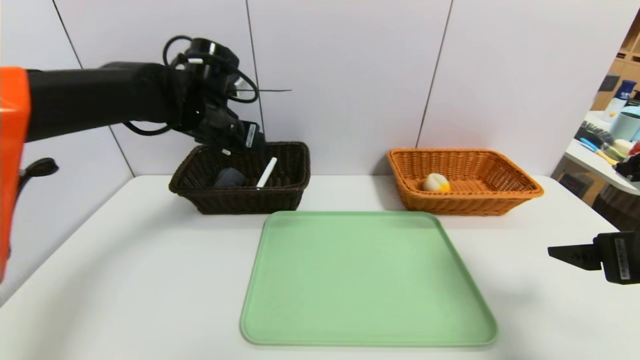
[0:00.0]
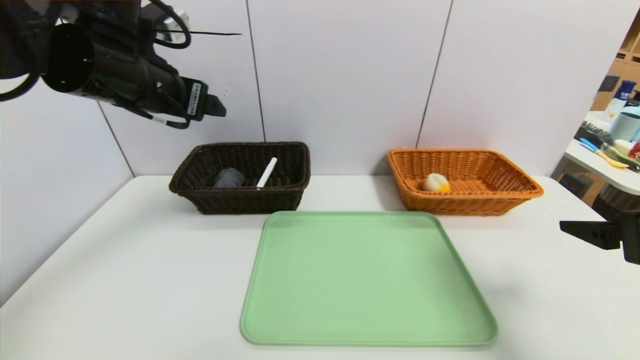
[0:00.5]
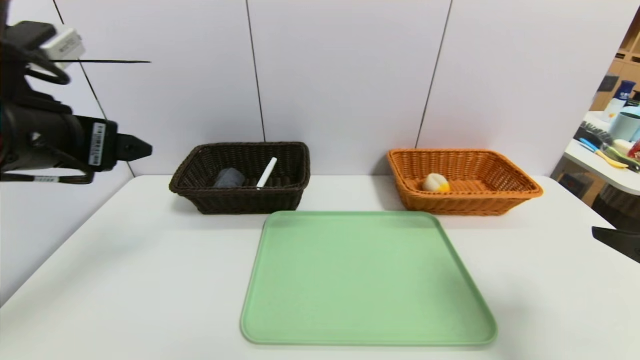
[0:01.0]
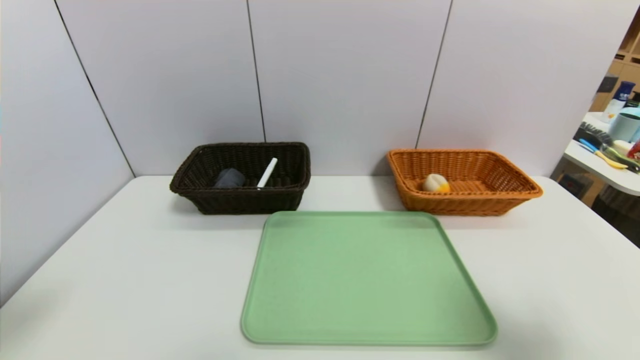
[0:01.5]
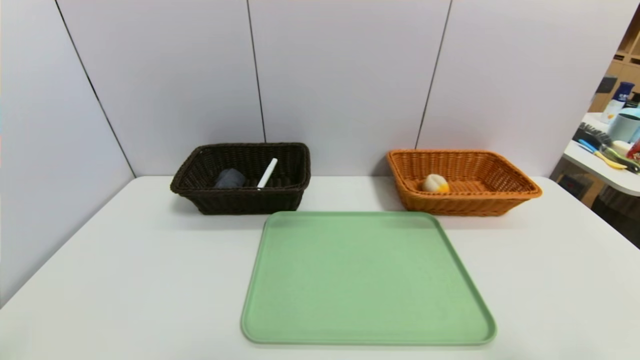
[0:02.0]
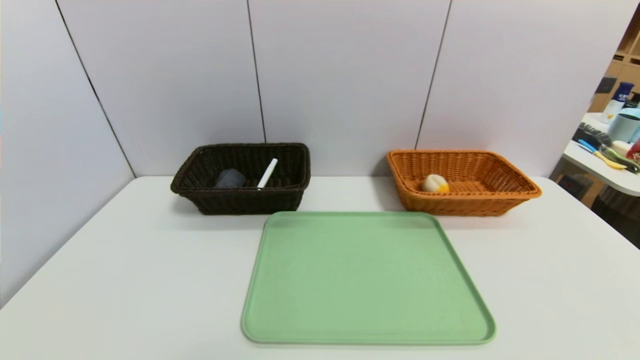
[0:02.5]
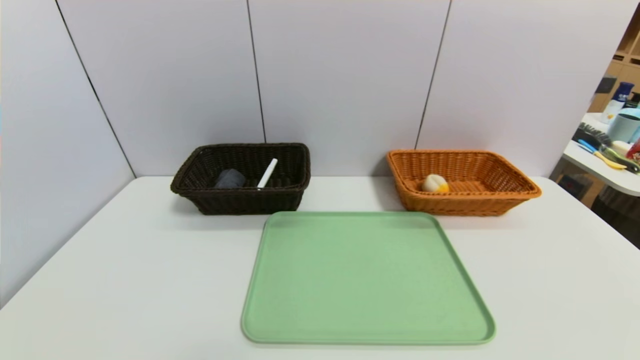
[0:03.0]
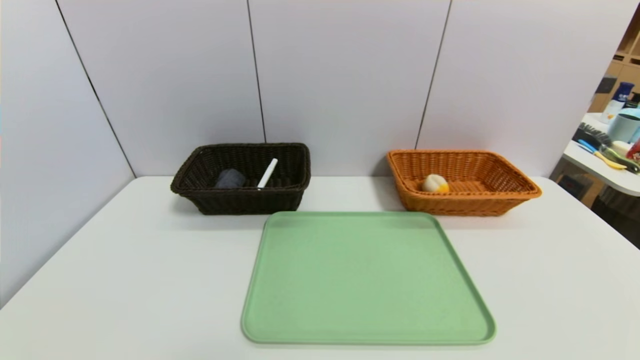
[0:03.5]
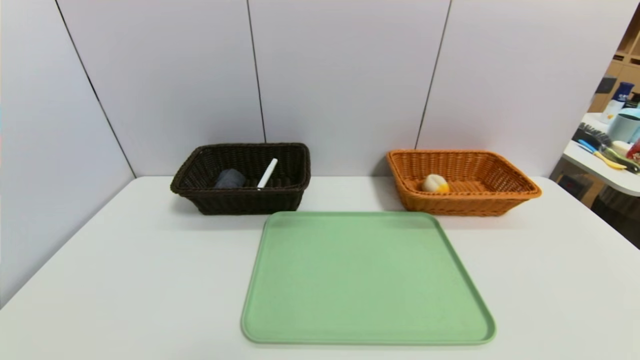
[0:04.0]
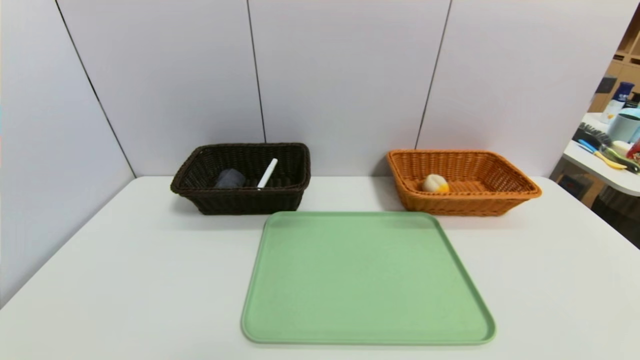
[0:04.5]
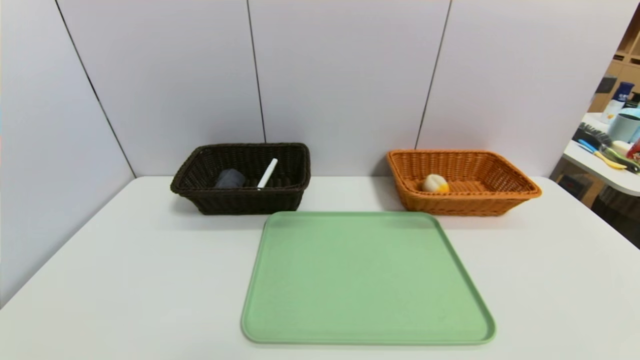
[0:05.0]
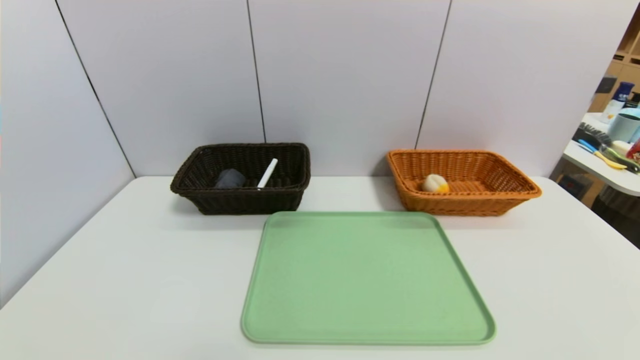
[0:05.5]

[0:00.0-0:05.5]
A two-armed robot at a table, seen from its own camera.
Task of the whole recording: place the food in the right basket with the right gripper, and place the non food items in the left basket with the left gripper.
0:00.0 to 0:02.0: The left gripper heads backward, covering some 40 cm, while the right gripper travels backward by approximately 15 cm.
